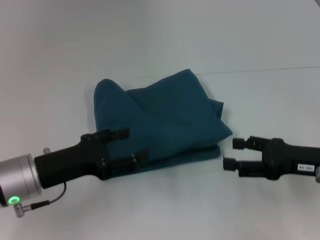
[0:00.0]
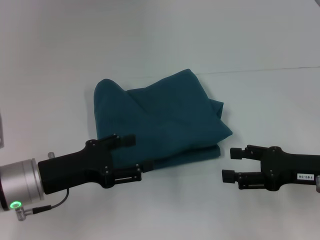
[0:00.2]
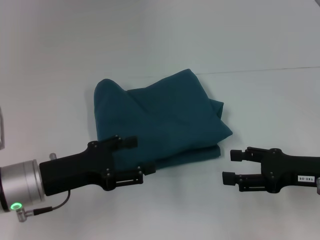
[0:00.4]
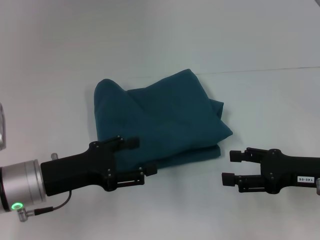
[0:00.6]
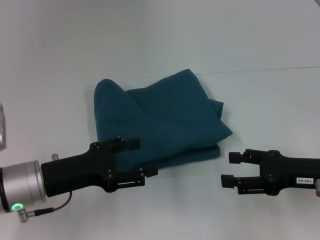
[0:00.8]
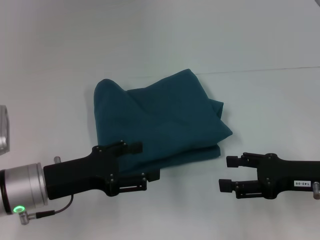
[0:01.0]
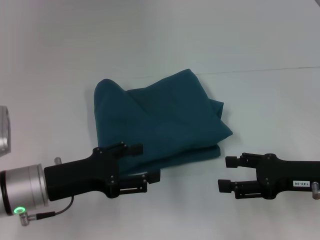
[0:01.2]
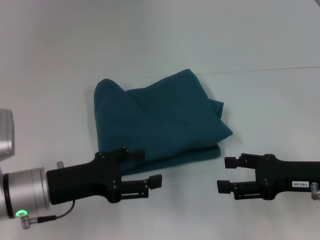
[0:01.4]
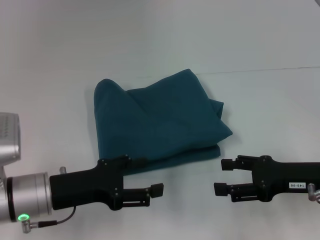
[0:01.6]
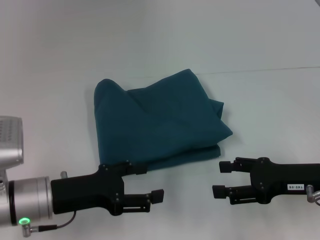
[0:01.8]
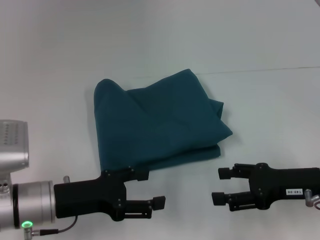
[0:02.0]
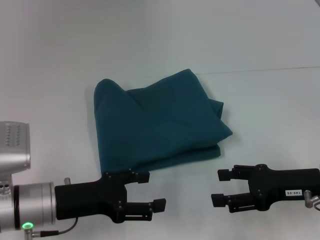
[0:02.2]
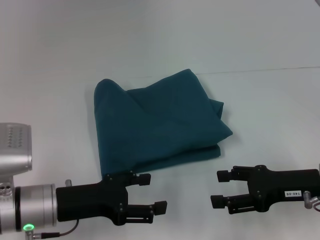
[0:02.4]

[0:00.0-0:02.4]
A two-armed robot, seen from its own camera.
0:00.0 to 0:02.4: The grippers stay close to where they were, moving slightly.

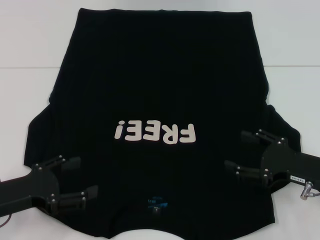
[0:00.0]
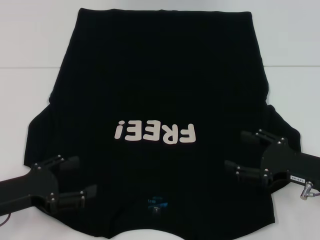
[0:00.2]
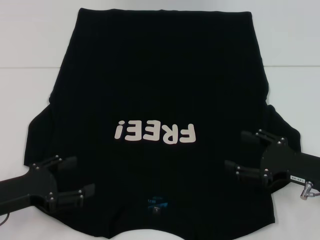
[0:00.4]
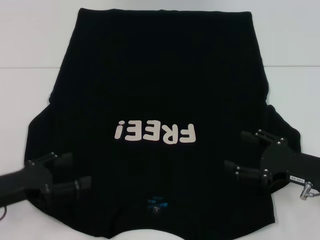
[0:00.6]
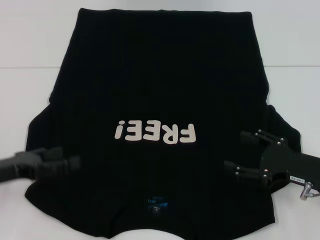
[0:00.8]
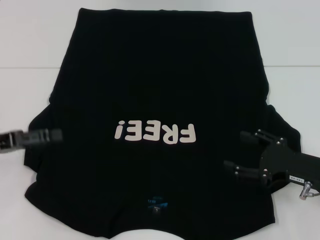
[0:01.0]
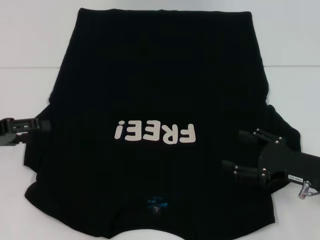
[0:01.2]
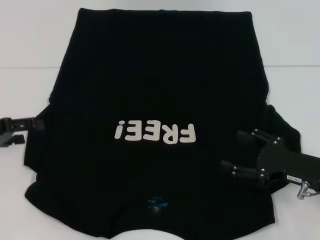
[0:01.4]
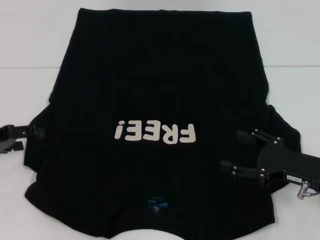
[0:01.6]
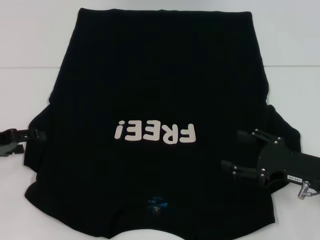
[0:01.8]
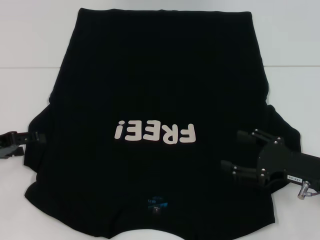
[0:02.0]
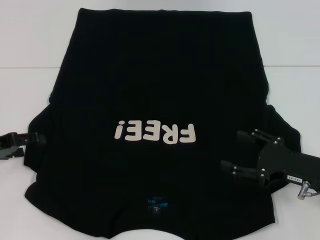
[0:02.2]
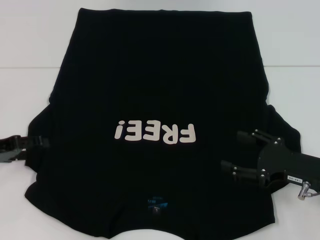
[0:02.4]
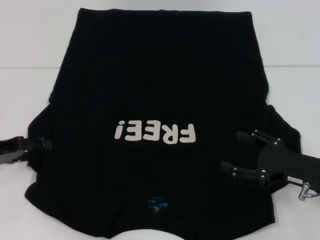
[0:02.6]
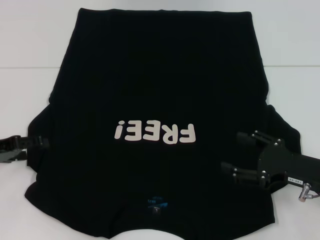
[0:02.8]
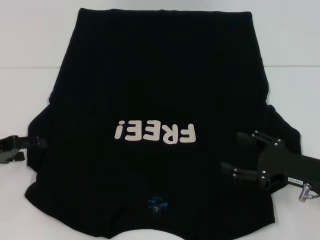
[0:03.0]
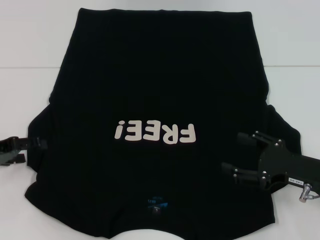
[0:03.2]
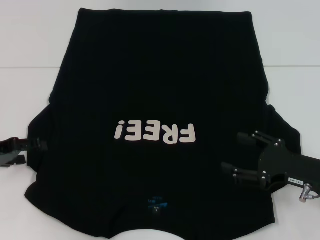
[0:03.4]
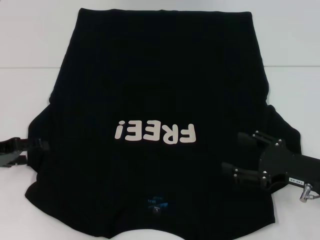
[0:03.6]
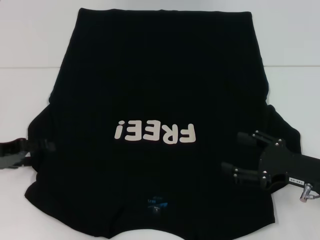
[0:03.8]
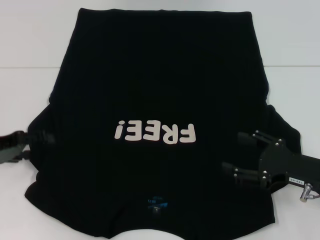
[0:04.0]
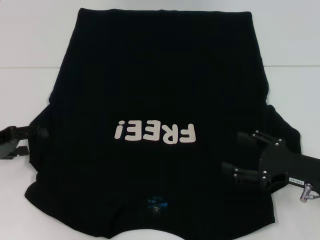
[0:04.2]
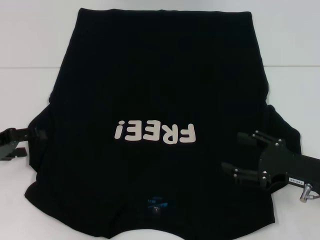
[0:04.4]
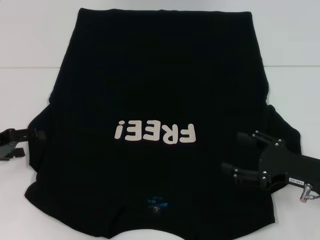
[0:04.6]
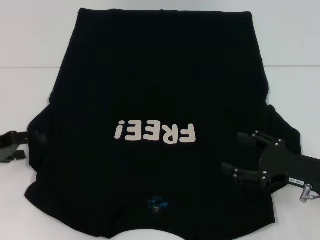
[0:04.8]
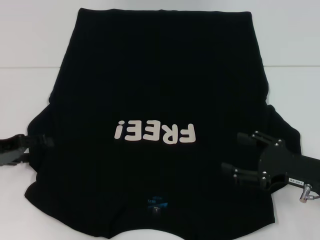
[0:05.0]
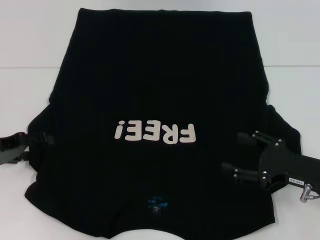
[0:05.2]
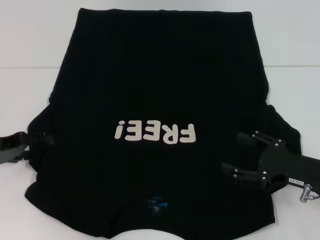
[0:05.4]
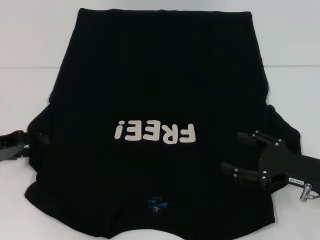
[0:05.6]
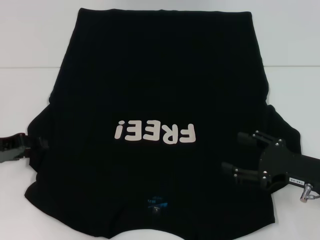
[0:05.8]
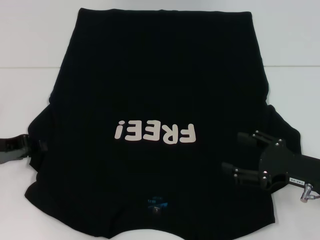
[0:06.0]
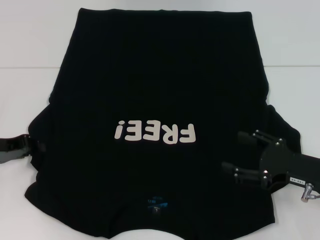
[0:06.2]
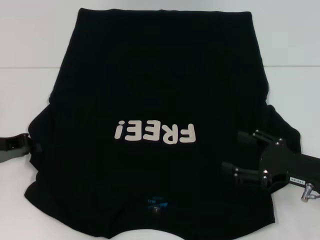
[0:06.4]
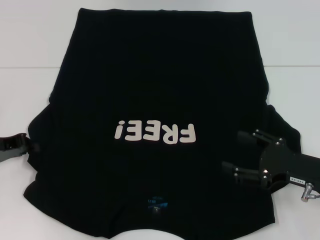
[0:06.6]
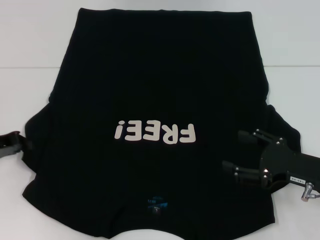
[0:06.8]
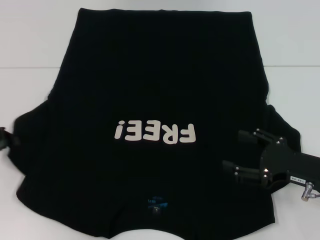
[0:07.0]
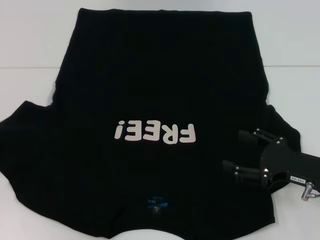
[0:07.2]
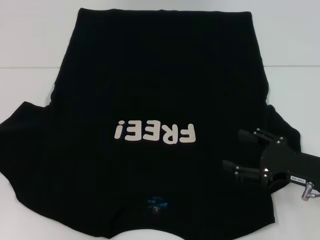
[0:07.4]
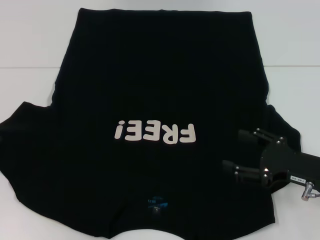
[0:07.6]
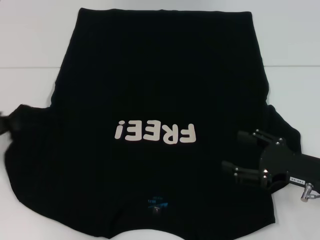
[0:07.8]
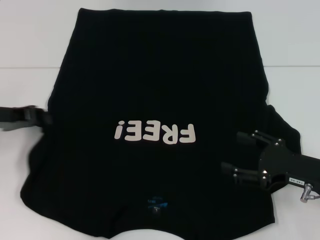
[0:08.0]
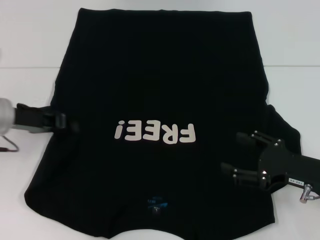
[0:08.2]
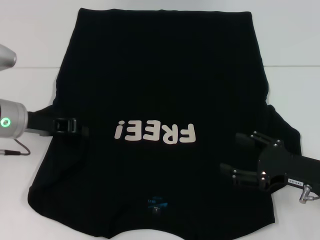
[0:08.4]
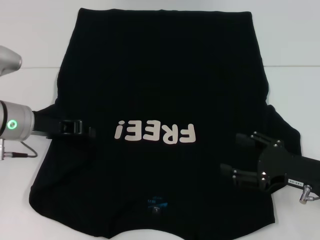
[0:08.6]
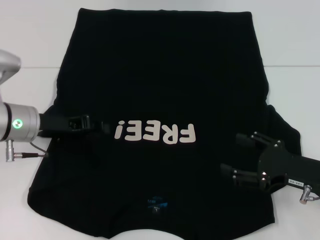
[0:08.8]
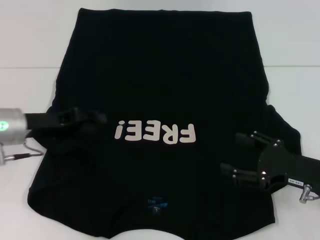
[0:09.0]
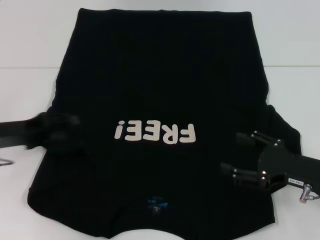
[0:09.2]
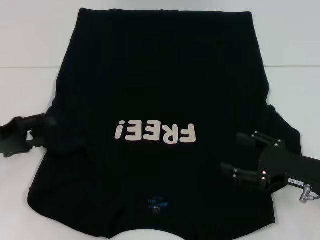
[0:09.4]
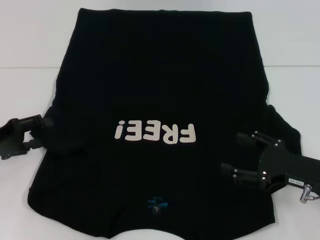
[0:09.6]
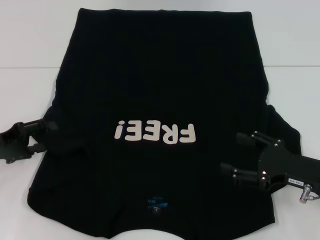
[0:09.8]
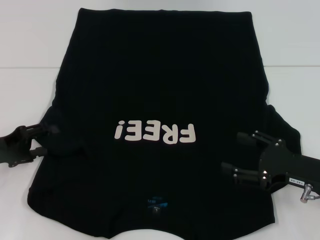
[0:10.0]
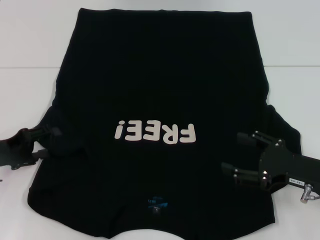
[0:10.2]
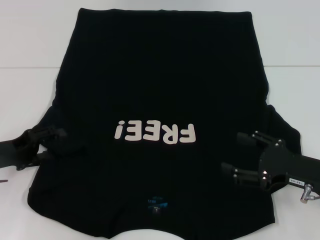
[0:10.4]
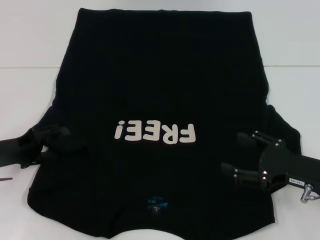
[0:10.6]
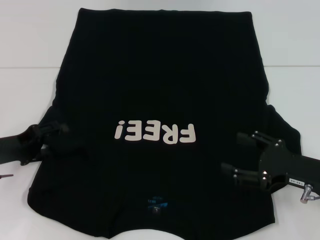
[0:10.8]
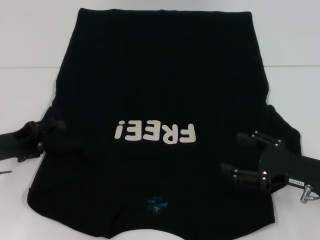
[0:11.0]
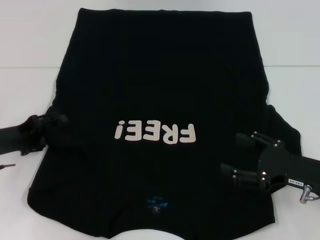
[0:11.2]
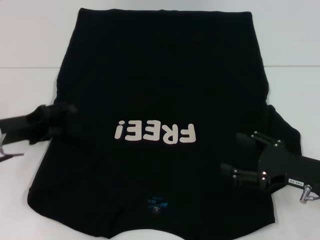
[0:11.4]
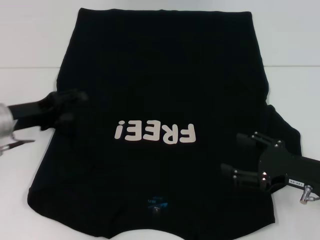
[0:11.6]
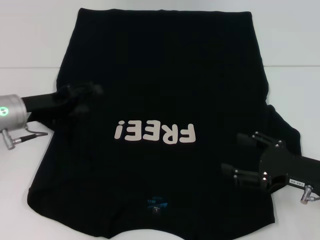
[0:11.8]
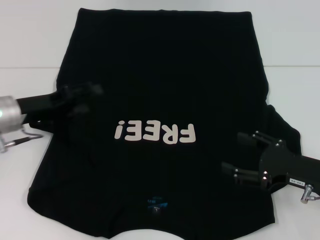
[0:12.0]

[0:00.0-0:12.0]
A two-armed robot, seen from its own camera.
Step, 0:00.0 to 0:09.0: Fold the bottom left sleeve with your left hand.
0:00.0 to 0:01.6: The left gripper moves forward and to the left, approximately 10 cm.
0:01.6 to 0:04.4: There are only small adjustments of the grippers.
0:04.4 to 0:06.0: The left gripper closes.
0:06.0 to 0:07.6: The left gripper shifts about 5 cm to the left, and closes its fingers.
0:07.6 to 0:09.0: The left gripper moves to the right, approximately 15 cm.
0:09.0 to 0:10.4: The left gripper is displaced to the left by about 5 cm, and opens its fingers.
0:10.4 to 0:12.0: The left gripper shifts about 5 cm forward and to the right.

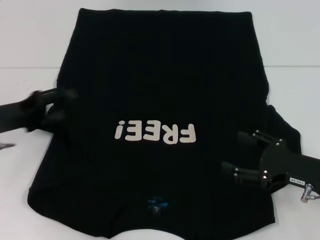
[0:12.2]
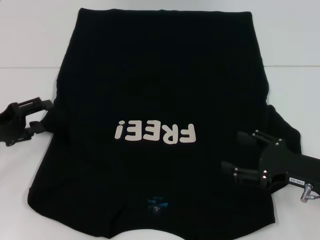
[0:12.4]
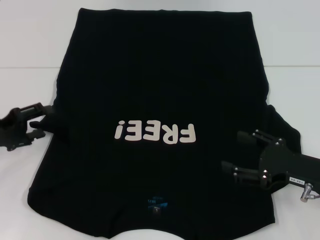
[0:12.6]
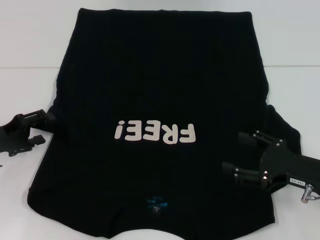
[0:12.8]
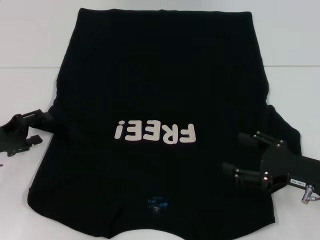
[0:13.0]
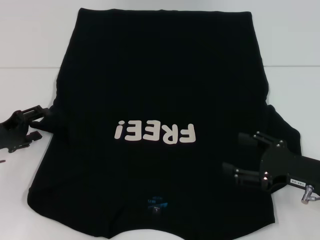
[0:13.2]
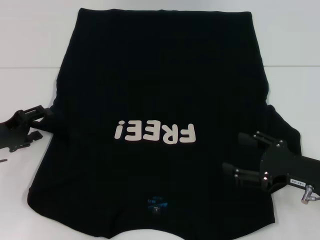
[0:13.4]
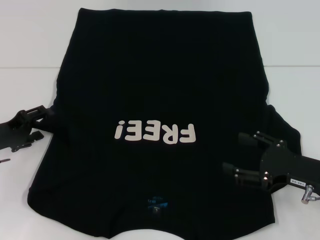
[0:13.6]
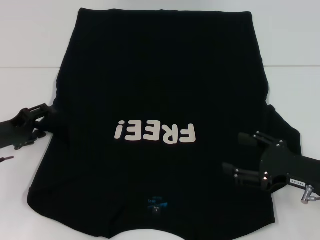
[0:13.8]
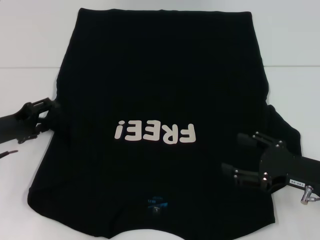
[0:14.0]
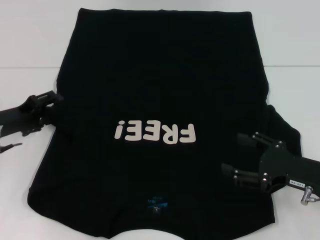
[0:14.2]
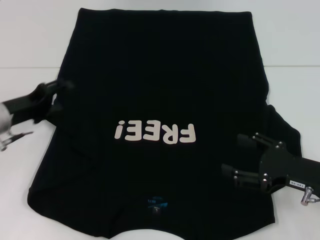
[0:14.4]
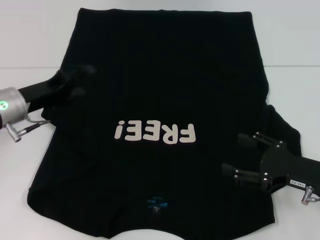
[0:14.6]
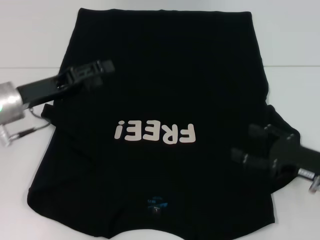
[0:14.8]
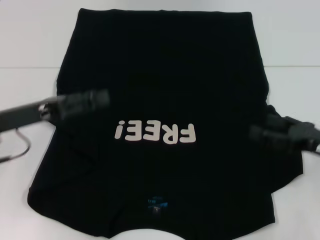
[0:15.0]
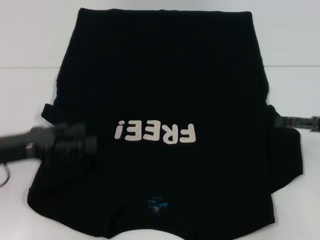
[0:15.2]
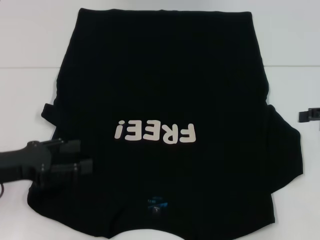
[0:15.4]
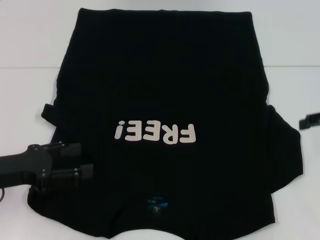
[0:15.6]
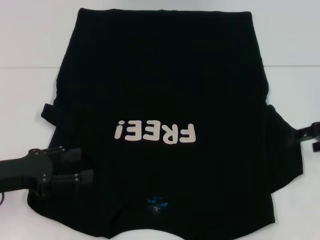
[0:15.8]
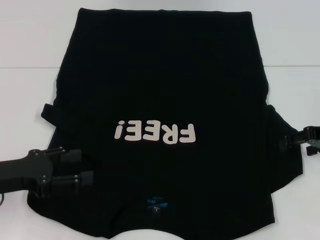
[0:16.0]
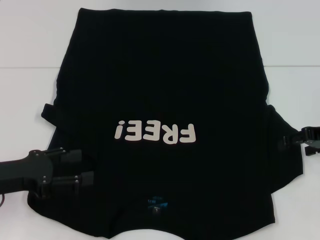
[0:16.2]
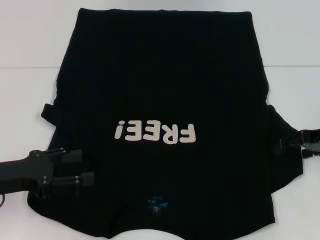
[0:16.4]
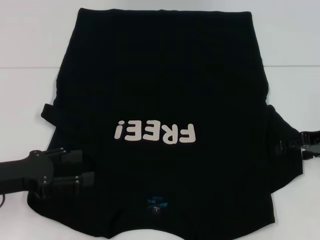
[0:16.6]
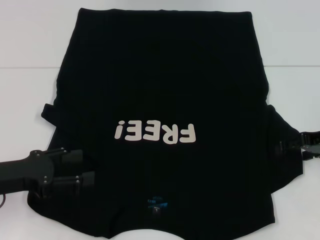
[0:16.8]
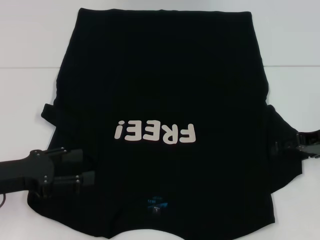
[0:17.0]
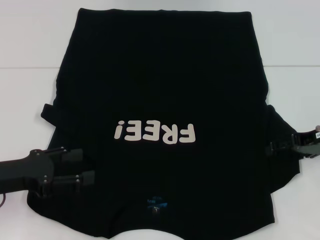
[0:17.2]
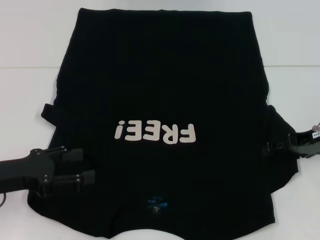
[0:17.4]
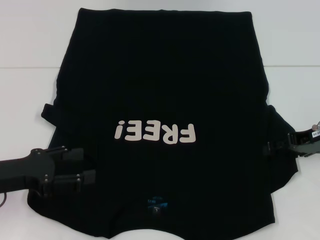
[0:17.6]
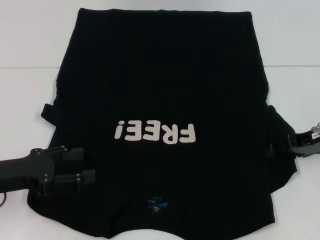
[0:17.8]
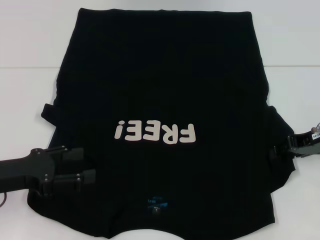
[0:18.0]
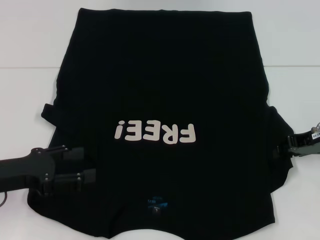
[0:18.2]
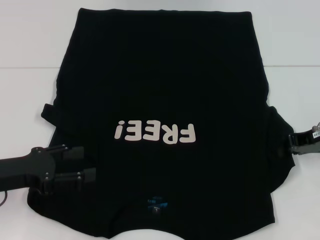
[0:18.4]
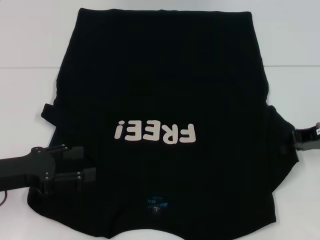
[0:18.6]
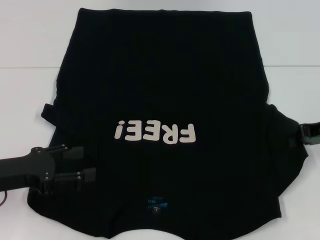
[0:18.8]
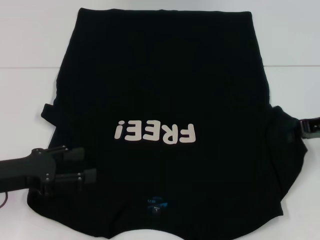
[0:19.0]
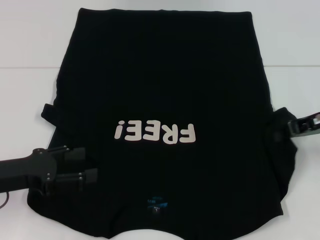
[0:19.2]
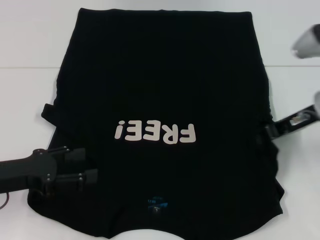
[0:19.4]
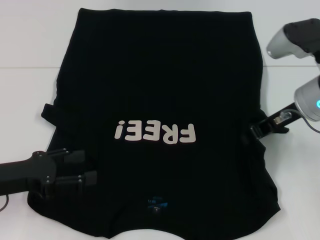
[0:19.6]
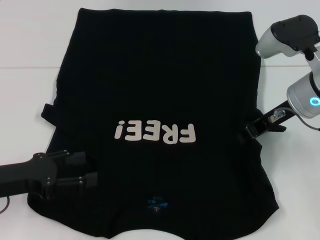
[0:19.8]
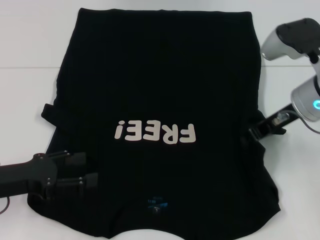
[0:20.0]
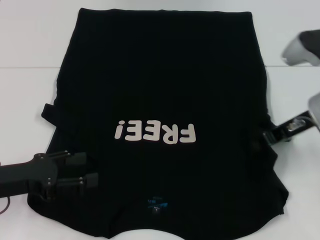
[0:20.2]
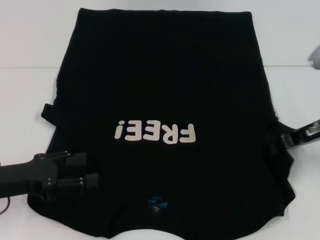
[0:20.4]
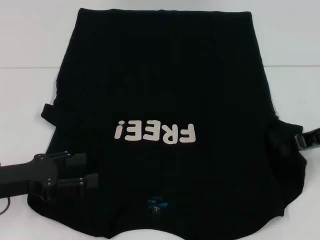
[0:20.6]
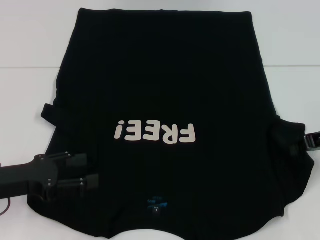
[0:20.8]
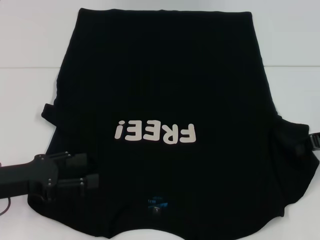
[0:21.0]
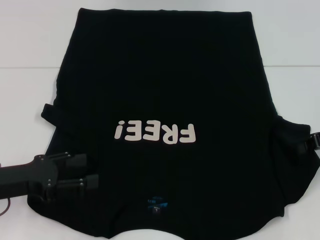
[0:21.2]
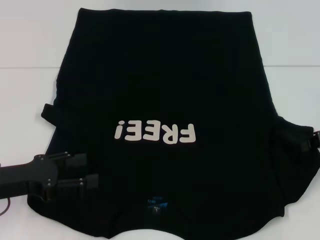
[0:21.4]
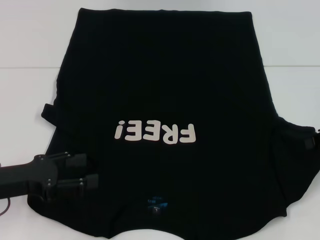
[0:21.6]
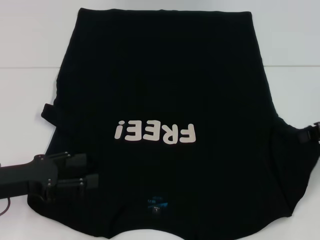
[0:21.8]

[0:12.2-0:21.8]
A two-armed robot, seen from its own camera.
0:12.2 to 0:13.8: The grippers make only small movements.
0:13.8 to 0:15.4: The right gripper is displaced upward, to the right and forward by approximately 15 cm. The left gripper heads backward, covering some 5 cm.
0:15.4 to 0:17.0: The right gripper is displaced to the left by some 5 cm.
0:17.0 to 0:18.6: The right gripper closes up.
0:18.6 to 0:20.2: The right gripper travels to the left by about 5 cm.
0:20.2 to 0:21.8: The right gripper moves to the right, approximately 10 cm.
